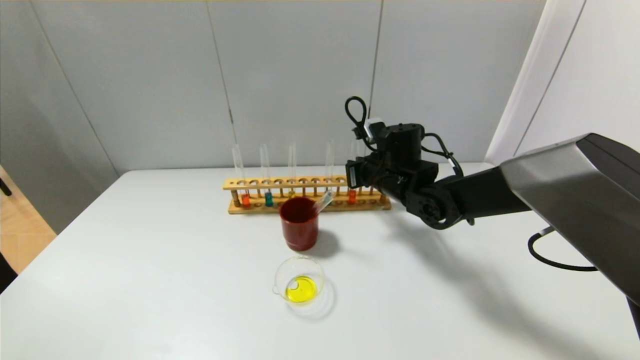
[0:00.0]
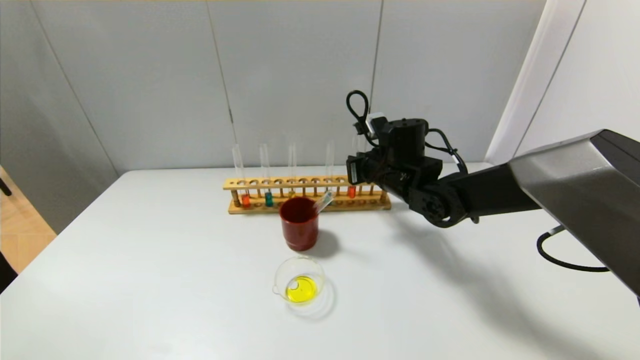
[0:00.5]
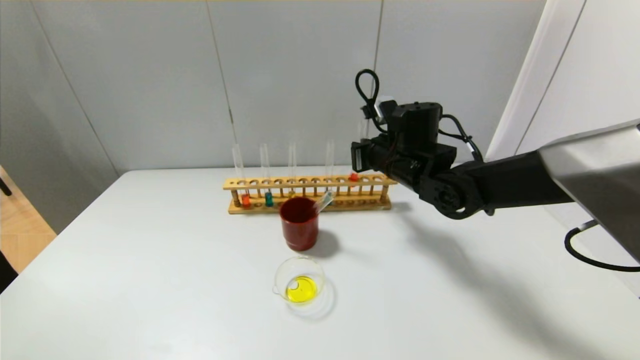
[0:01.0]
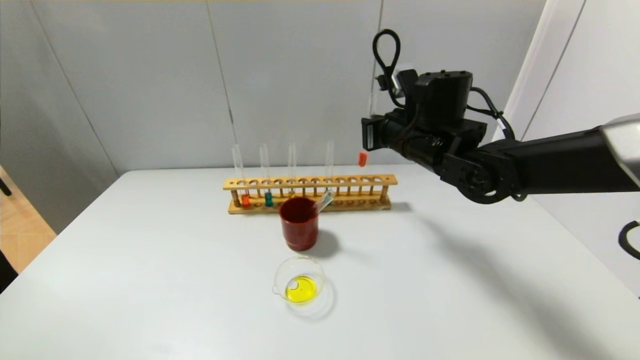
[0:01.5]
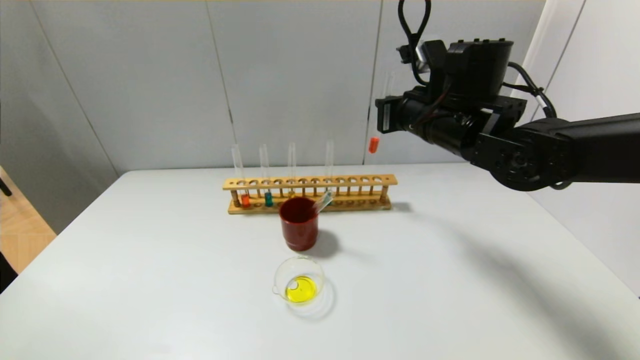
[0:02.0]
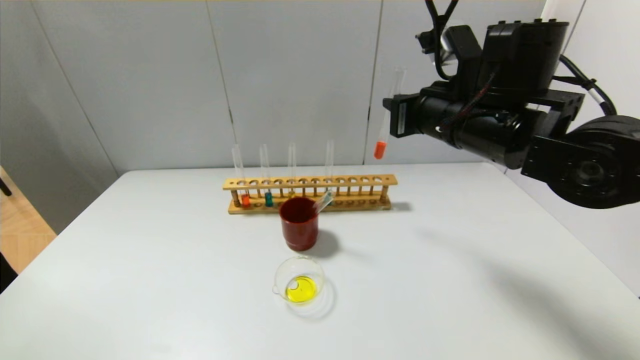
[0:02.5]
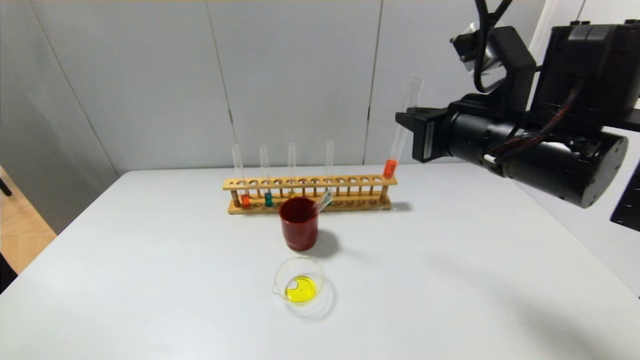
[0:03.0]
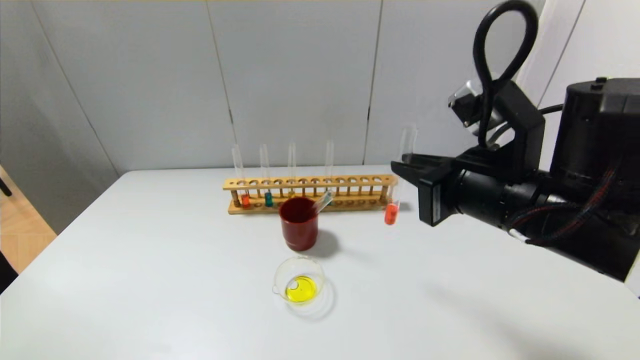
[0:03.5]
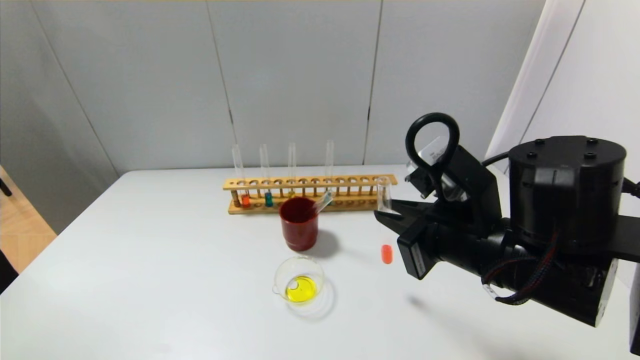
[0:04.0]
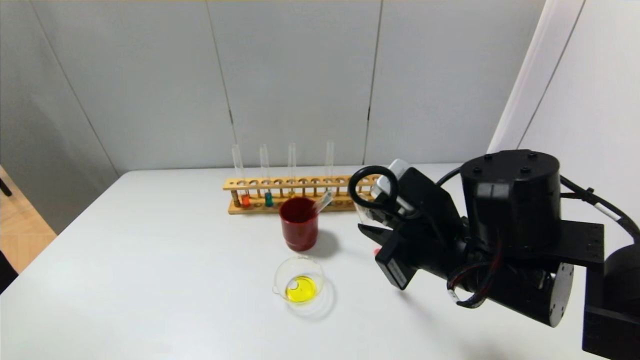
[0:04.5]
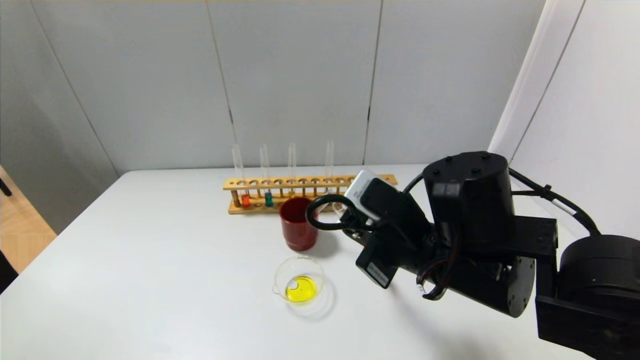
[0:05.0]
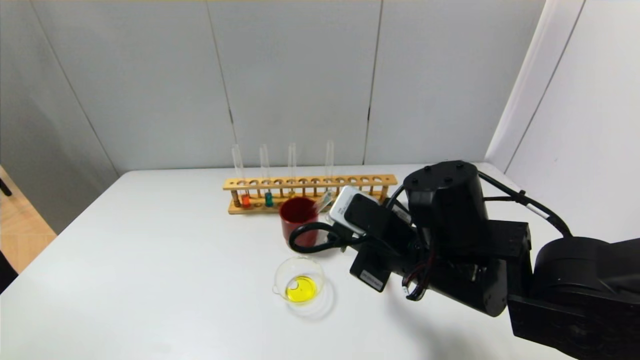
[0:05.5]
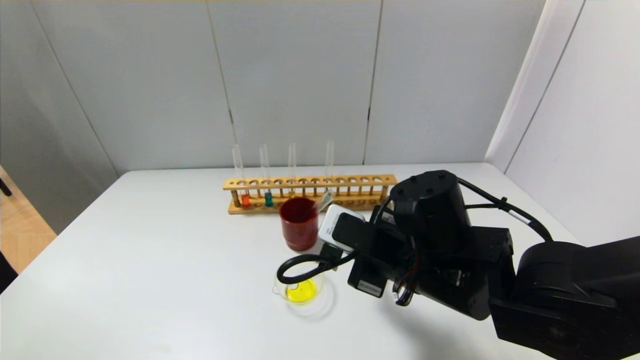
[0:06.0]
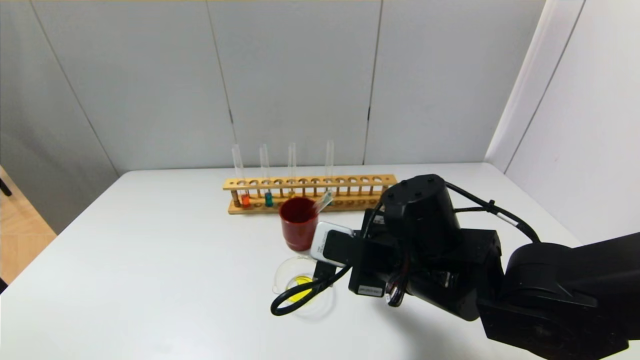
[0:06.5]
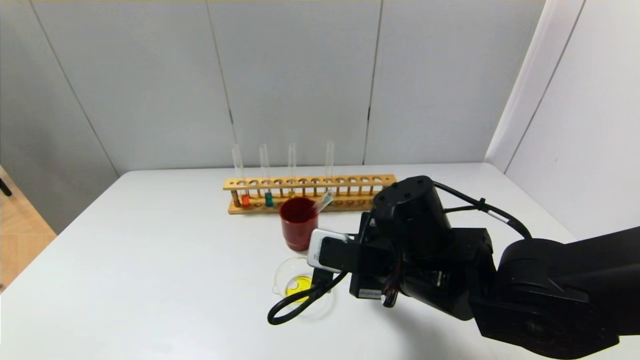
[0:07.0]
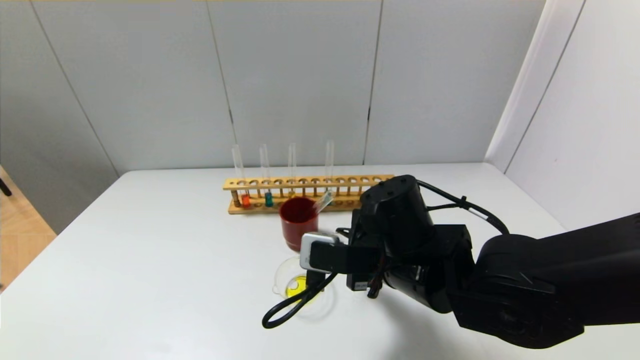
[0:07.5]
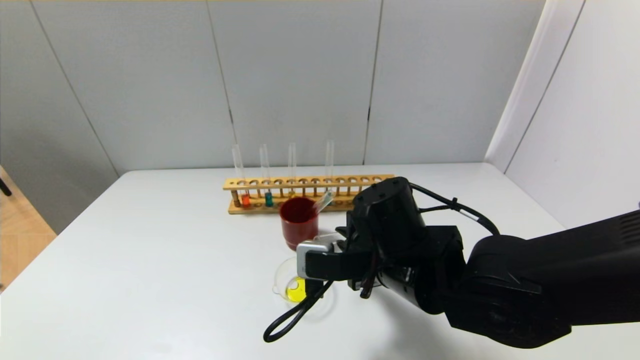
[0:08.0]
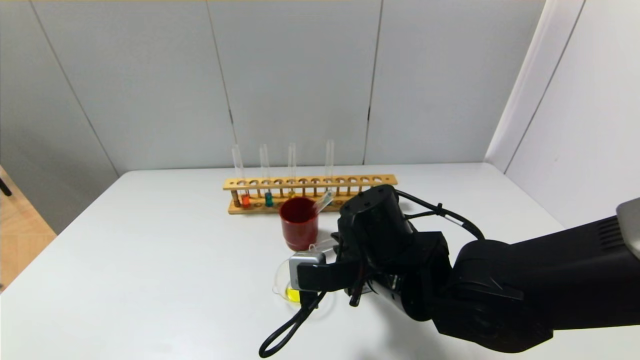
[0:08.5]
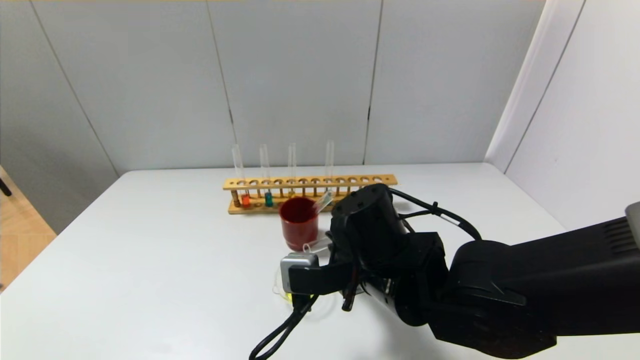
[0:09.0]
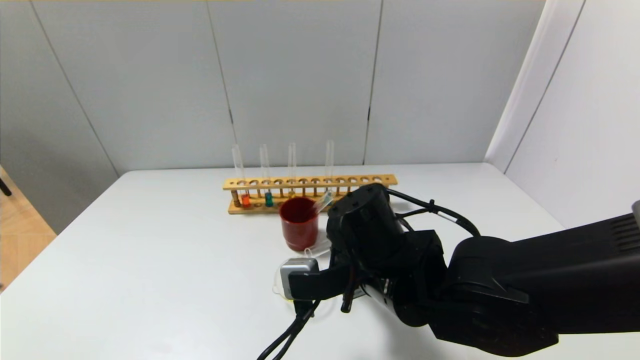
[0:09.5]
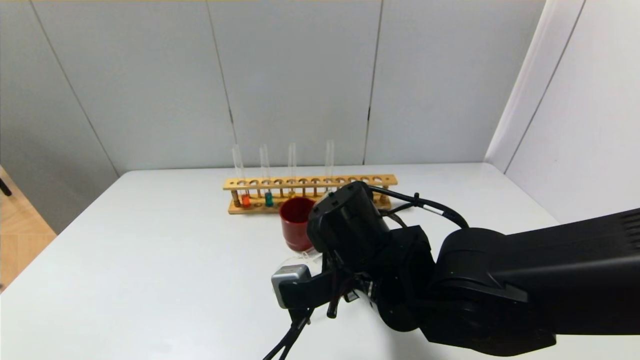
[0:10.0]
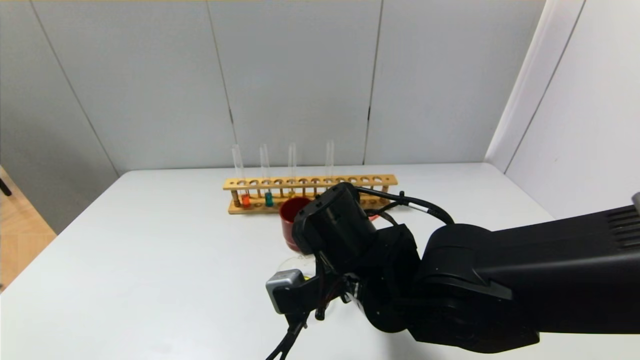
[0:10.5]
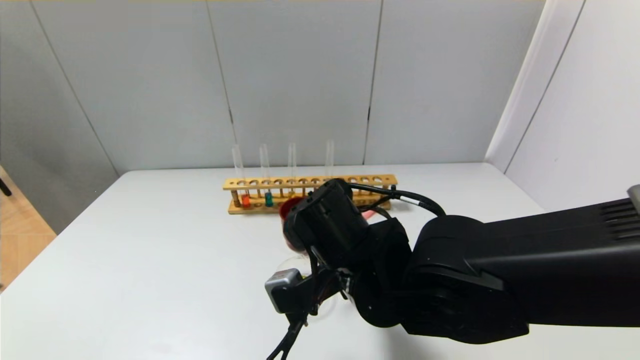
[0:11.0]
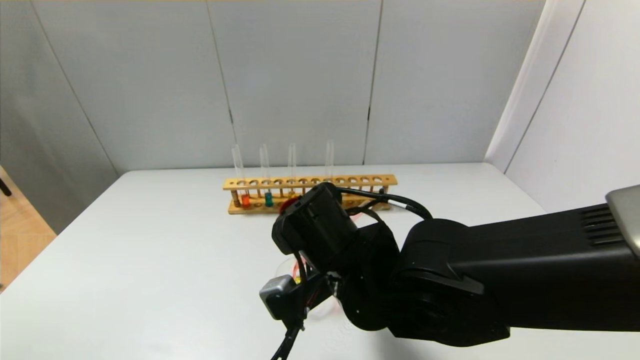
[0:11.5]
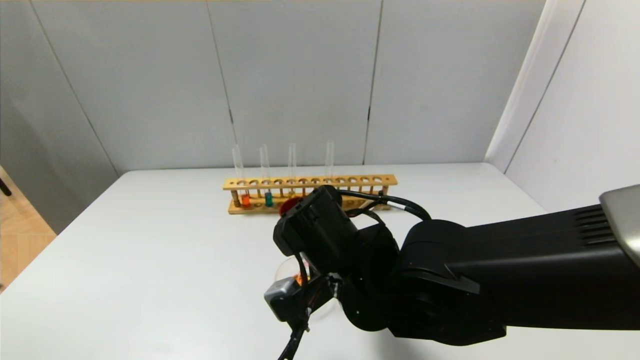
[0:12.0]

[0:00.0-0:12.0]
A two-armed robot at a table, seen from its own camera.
0:00.0 to 0:02.0: The right gripper moves upward and backward, roughly 15 cm.
0:02.0 to 0:04.0: The right gripper moves backward, about 15 cm.
0:04.0 to 0:06.0: The right gripper moves to the left, about 5 cm.
0:08.0 to 0:10.0: The grippers stay close to where they were, moving slightly.
0:10.0 to 0:12.0: The grippers stay close to where they were, moving slightly.

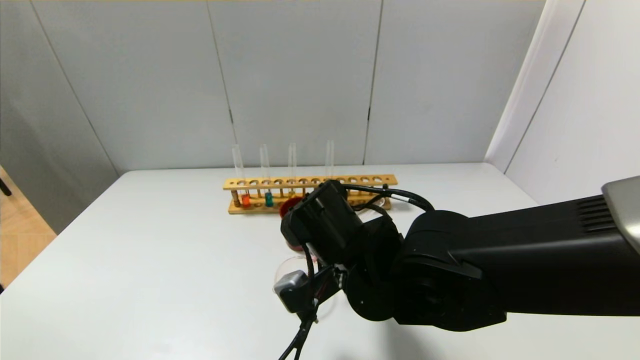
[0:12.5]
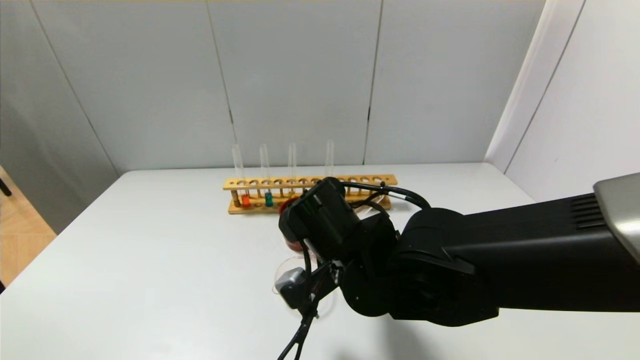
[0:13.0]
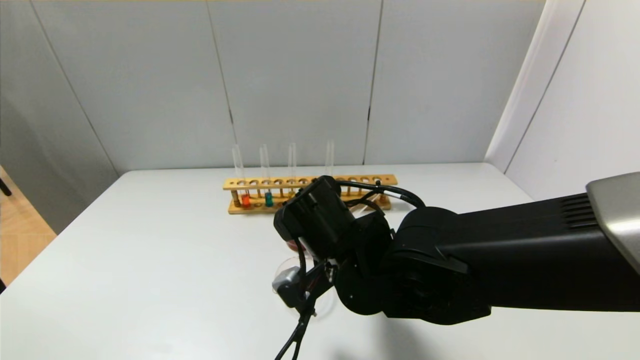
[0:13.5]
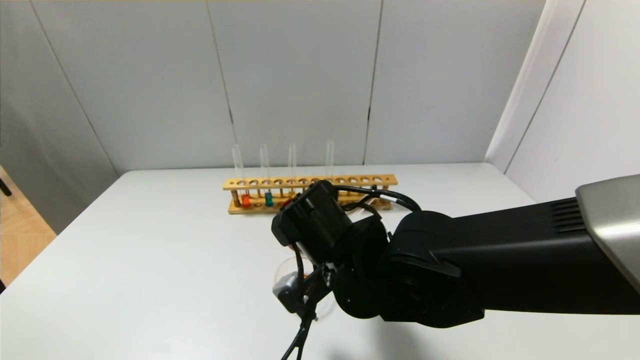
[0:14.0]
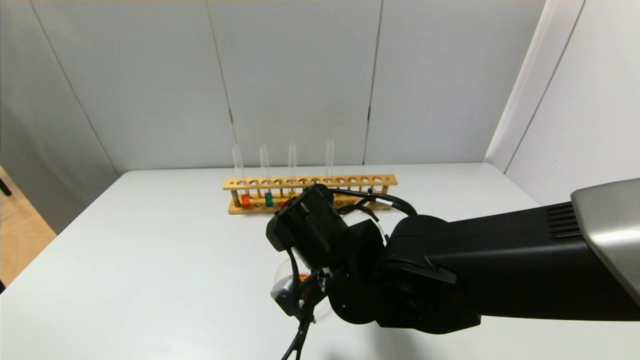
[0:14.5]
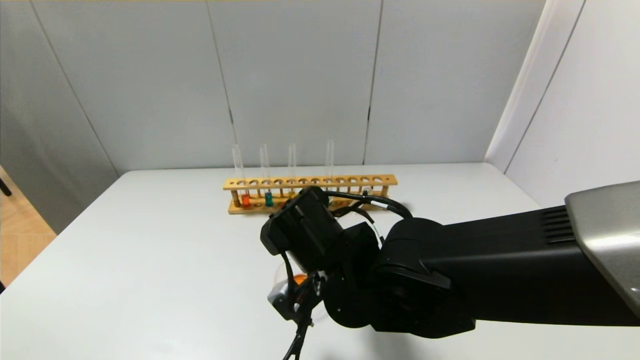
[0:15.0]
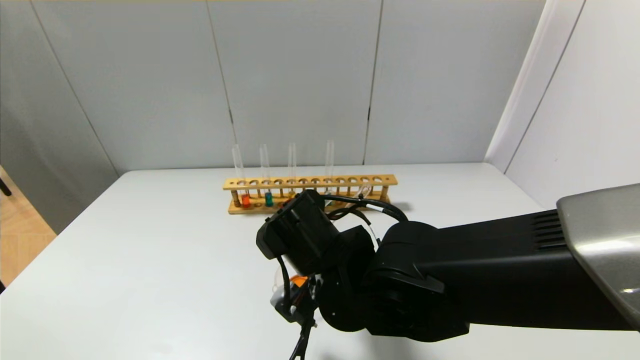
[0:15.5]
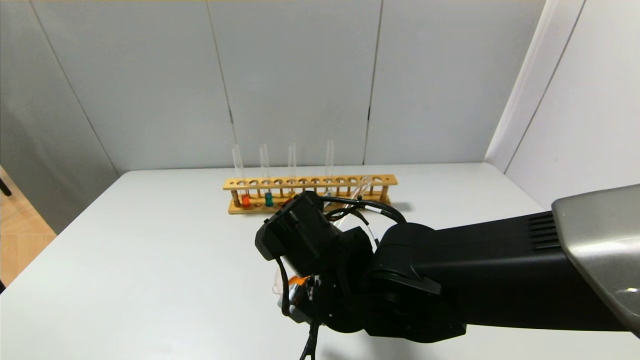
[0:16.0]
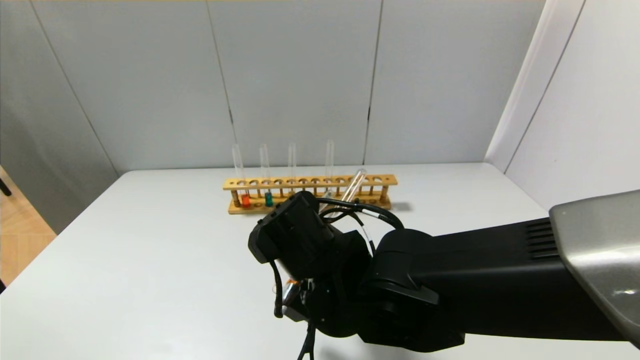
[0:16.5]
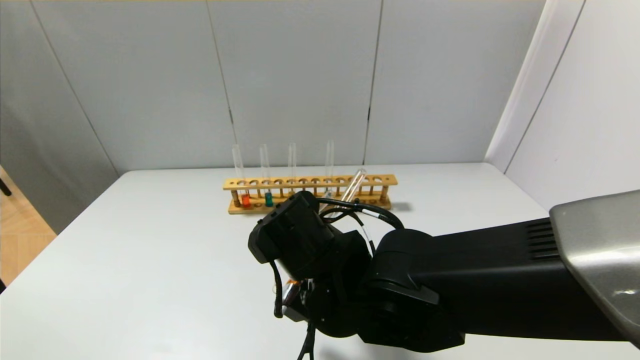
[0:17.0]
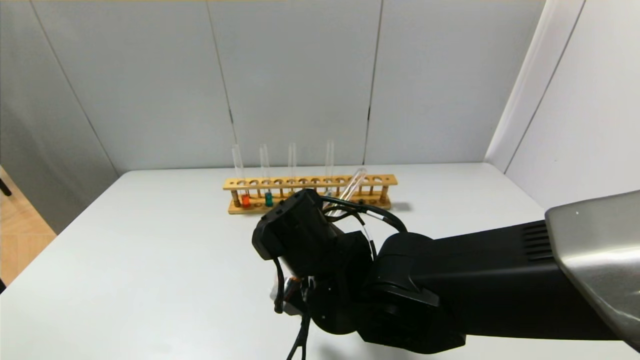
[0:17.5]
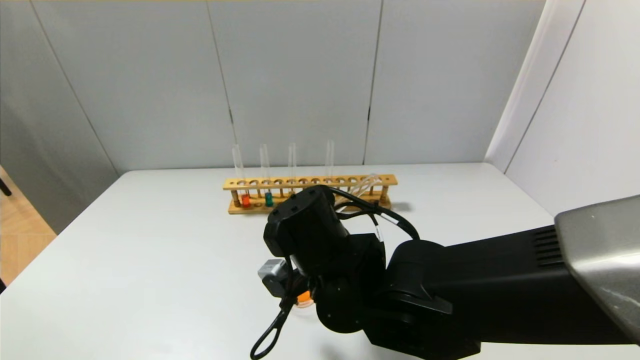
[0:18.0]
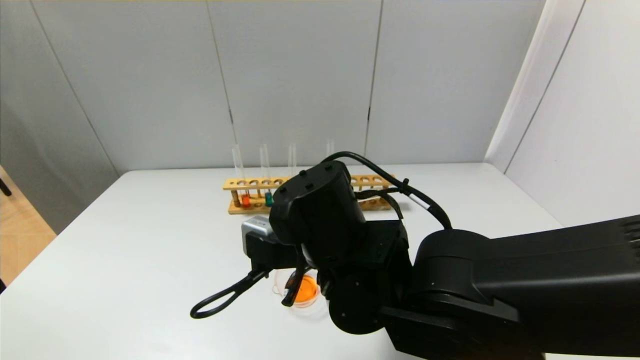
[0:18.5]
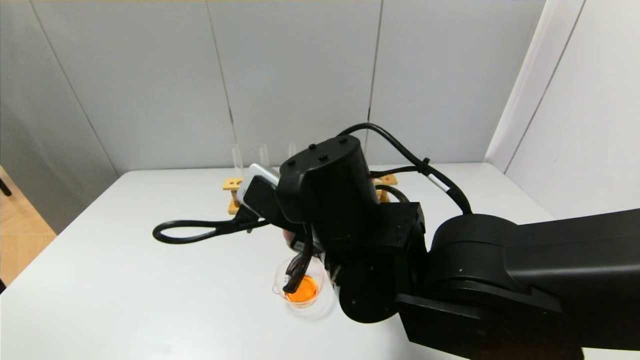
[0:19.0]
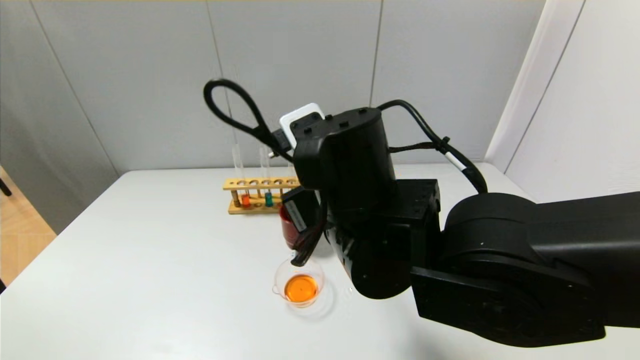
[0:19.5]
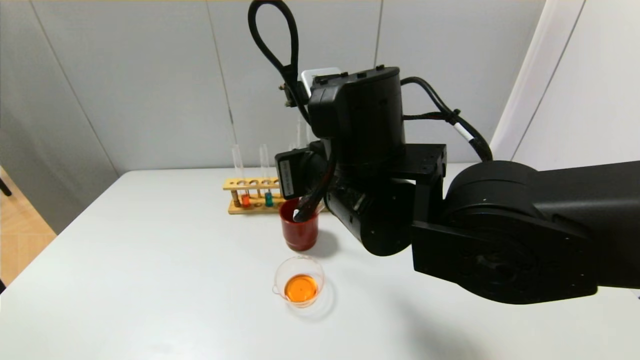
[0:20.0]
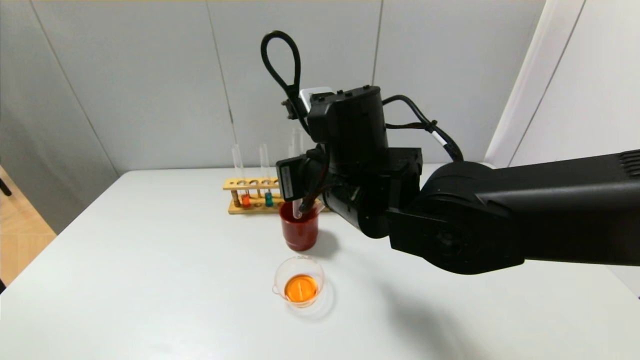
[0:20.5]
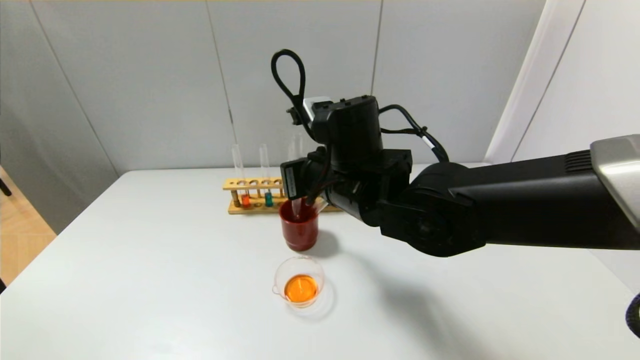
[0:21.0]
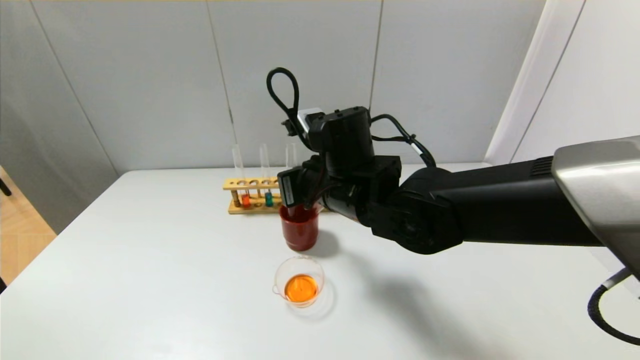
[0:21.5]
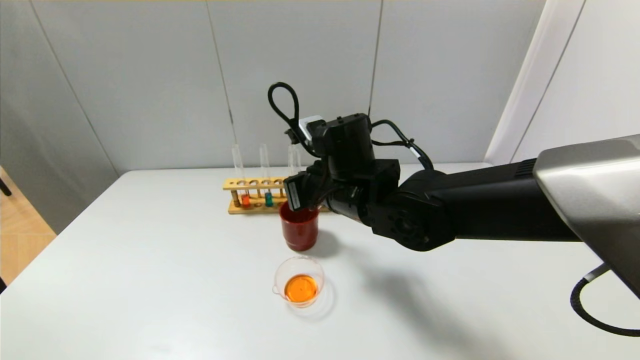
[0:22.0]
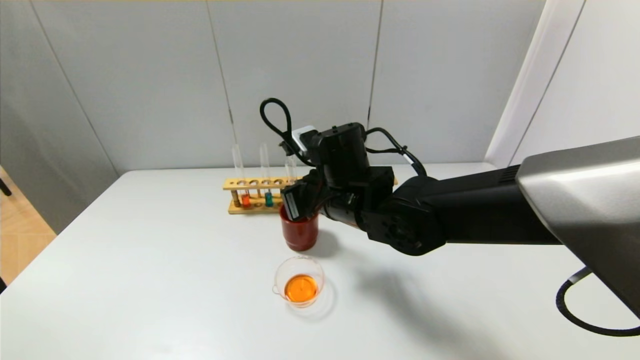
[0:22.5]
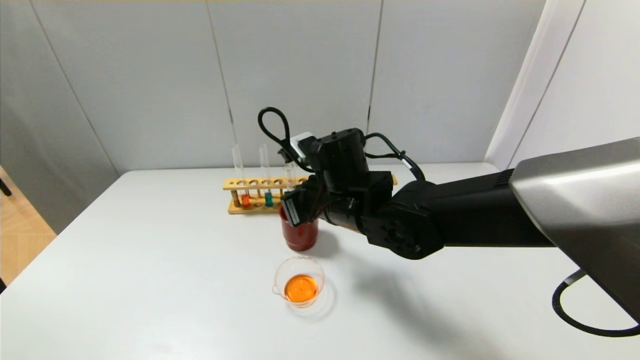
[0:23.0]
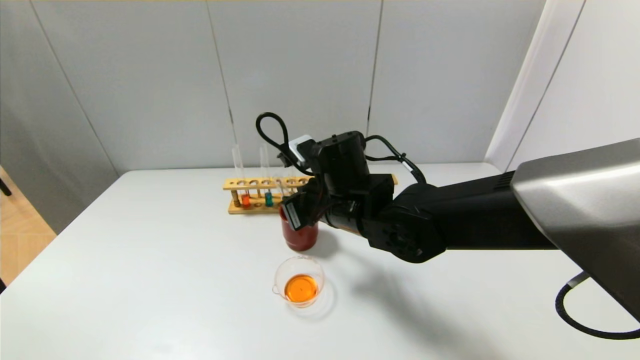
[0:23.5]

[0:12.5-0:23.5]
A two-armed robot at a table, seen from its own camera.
Step, 0:12.5 to 0:18.5: Pour the red reagent into the graduated cylinder with the right gripper.
0:12.5 to 0:14.5: The grippers stay close to where they were, moving slightly.
0:14.5 to 0:16.0: The grippers stay close to where they were, moving slightly.
0:18.0 to 0:20.0: The right gripper travels upward by about 10 cm.
0:20.0 to 0:21.5: The right gripper is displaced forward and downward by approximately 10 cm.
0:21.5 to 0:23.5: The grippers make only small movements.
